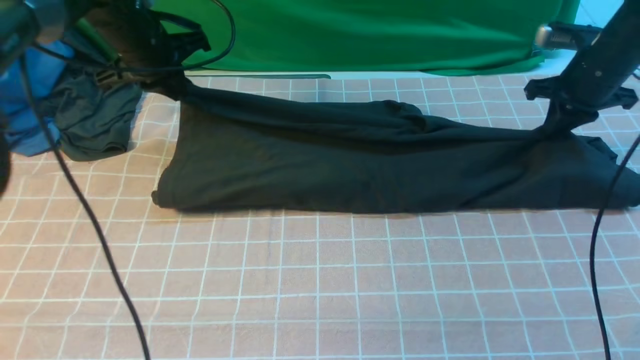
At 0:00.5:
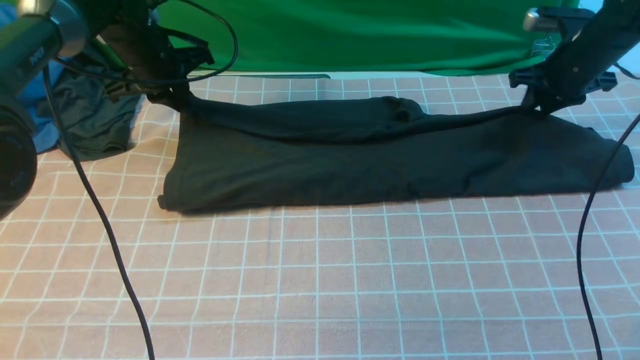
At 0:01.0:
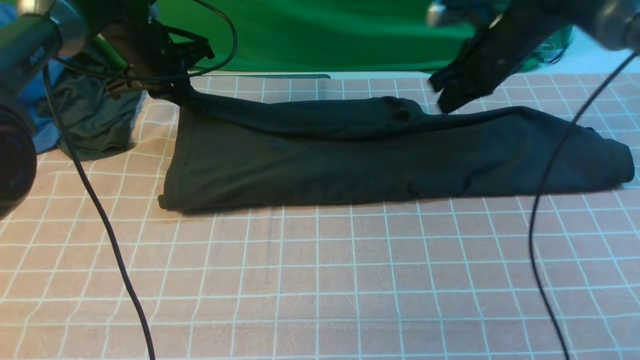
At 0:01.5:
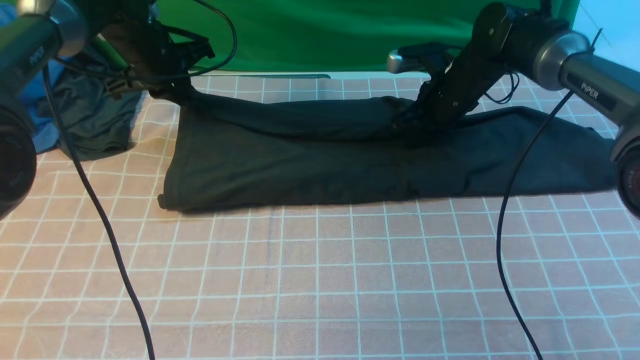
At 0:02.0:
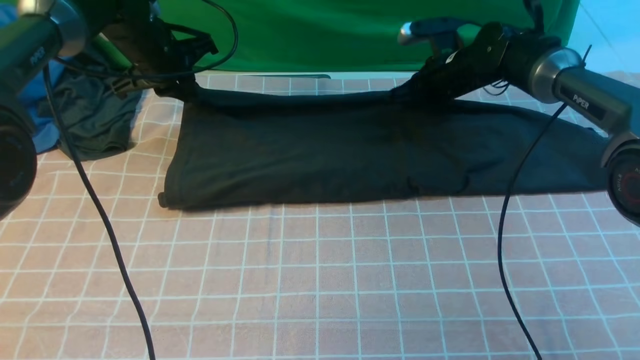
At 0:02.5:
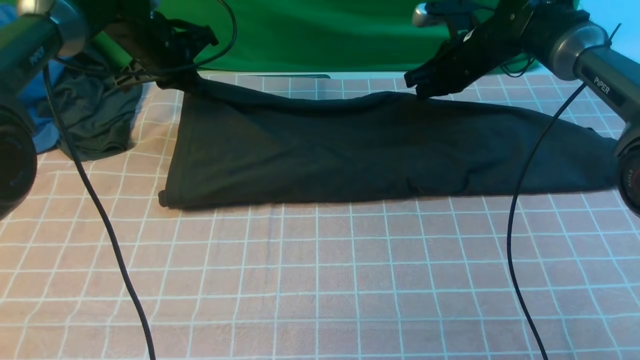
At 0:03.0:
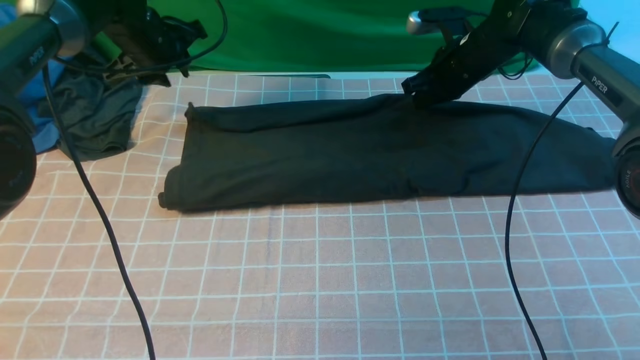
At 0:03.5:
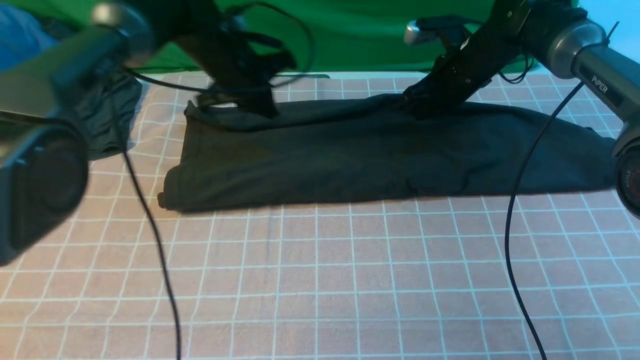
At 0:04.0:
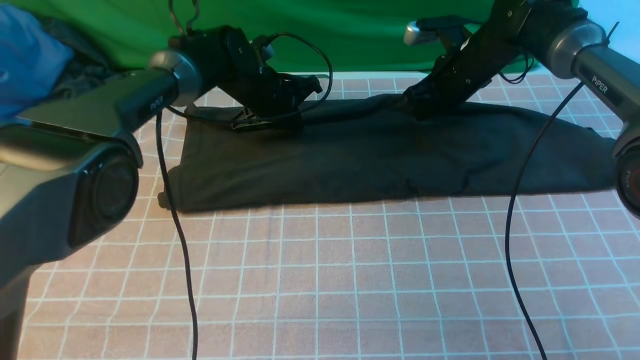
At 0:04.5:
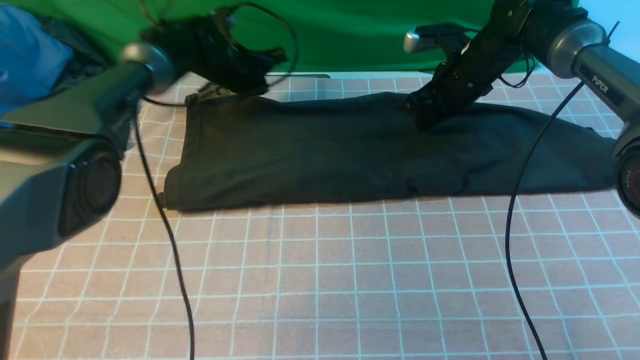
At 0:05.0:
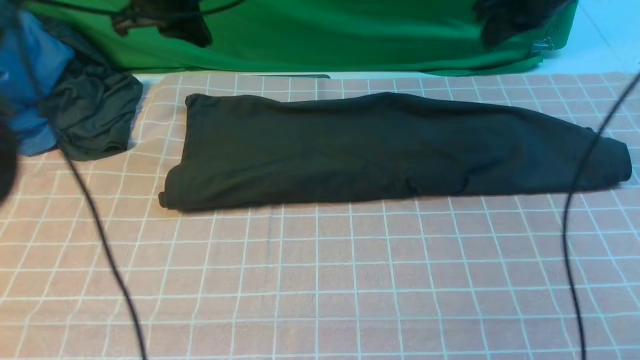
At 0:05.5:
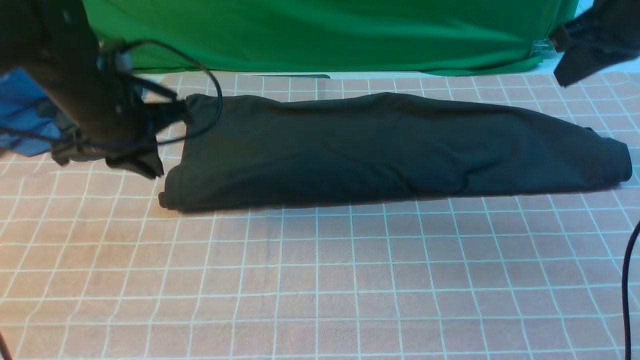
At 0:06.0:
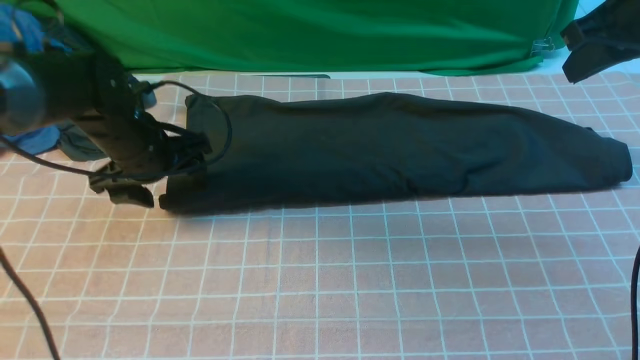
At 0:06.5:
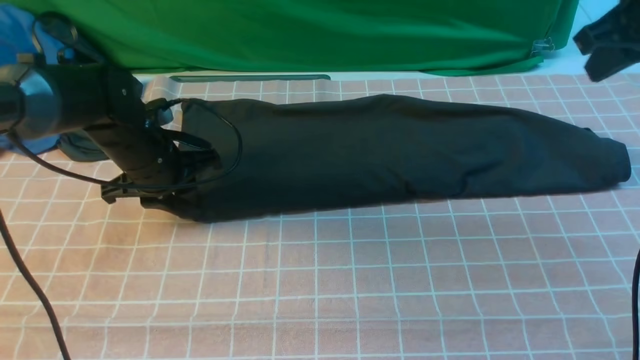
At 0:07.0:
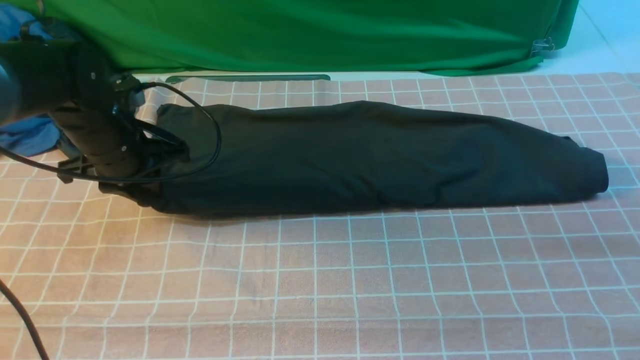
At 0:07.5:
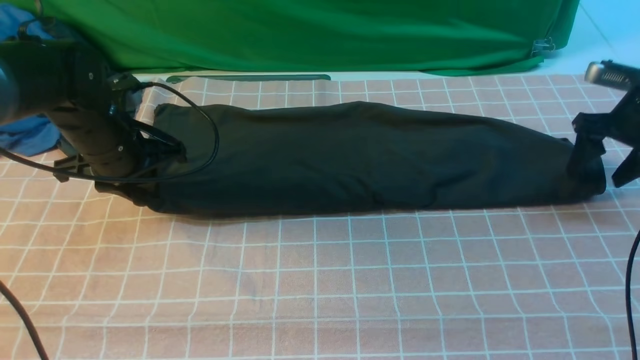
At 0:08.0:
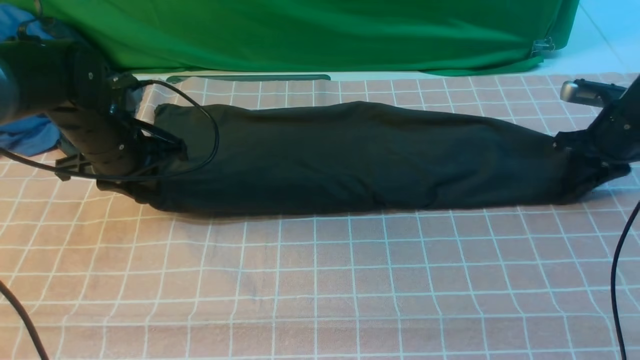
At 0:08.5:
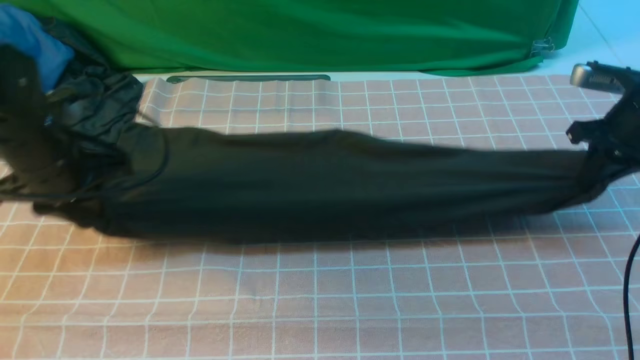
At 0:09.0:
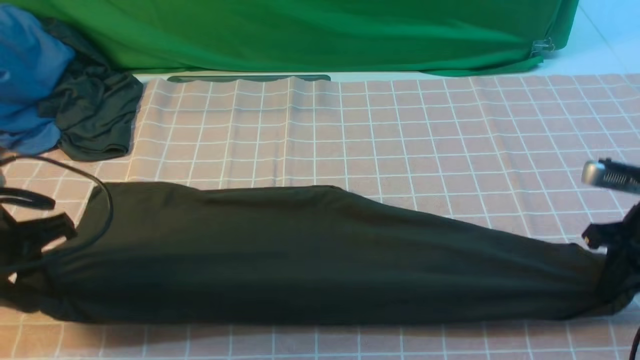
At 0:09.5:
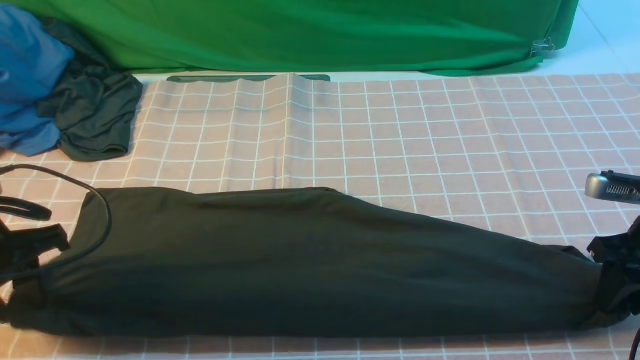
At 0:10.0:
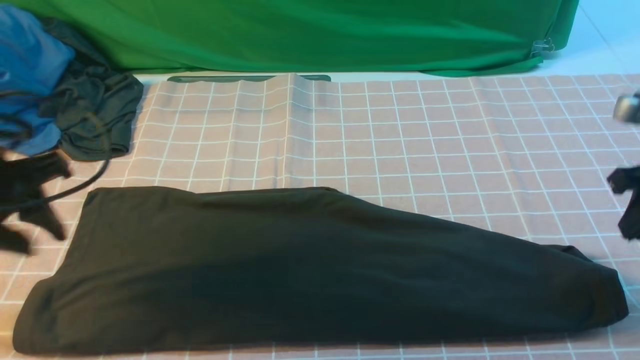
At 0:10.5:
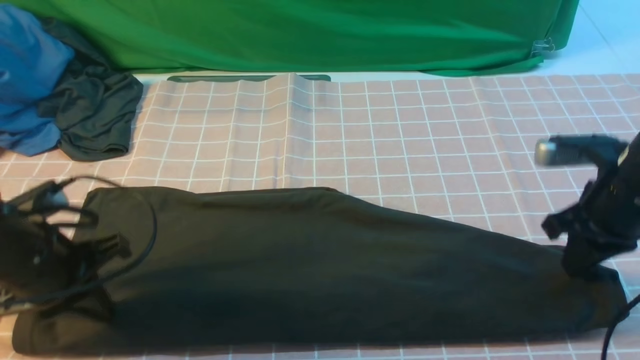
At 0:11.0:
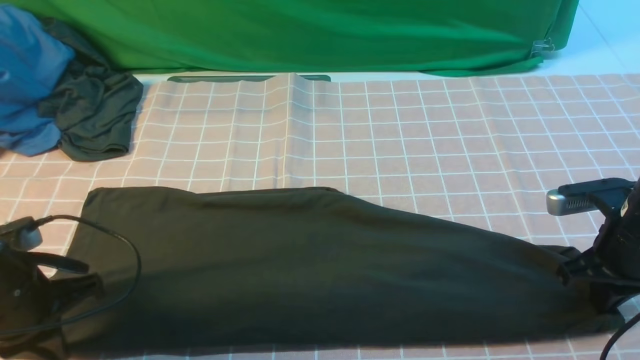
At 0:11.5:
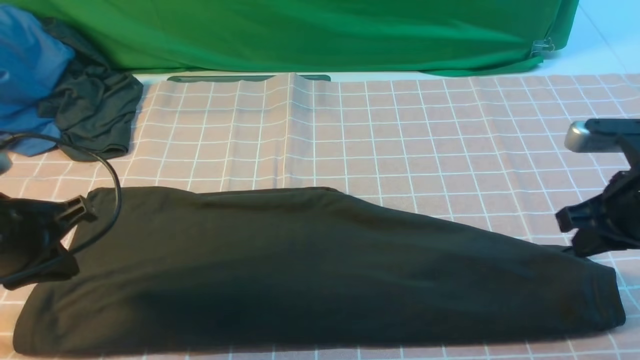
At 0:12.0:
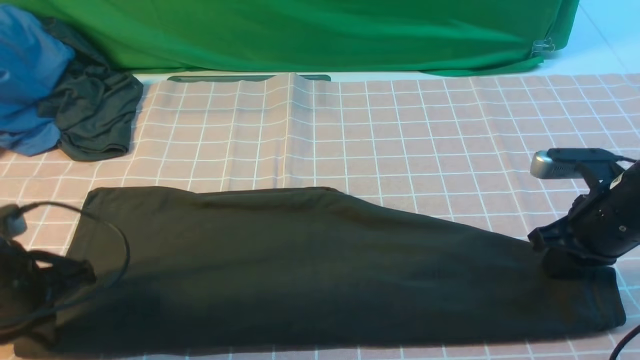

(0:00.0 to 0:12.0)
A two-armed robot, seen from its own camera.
Step, 0:00.0 - 0:03.0: use both arms to drag the lower edge of the fabric forward and fold it over the upper edge.
0:00.0 - 0:02.0: The right gripper shifts about 15 cm to the left and forward, and opens, then closes again.
0:02.0 - 0:04.0: The left gripper goes some 15 cm to the right and downward, and opens, then closes again.
0:04.0 - 0:06.0: The left gripper shifts about 20 cm backward and to the left, and opens. The right gripper moves upward, backward and to the right, some 25 cm.
0:06.0 - 0:08.0: The left gripper closes up. The right gripper travels downward and to the right by about 20 cm, and opens its fingers.
0:08.0 - 0:10.0: The left gripper shifts approximately 15 cm backward, to the left and upward. Meanwhile the right gripper heads backward and upward, covering roughly 15 cm.
0:10.0 - 0:12.0: The left gripper swings up and down, about 10 cm each way, with 2 reversals, and closes; the right gripper heads downward, covering about 5 cm.

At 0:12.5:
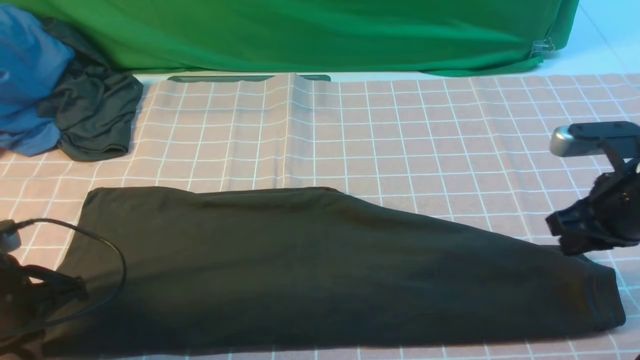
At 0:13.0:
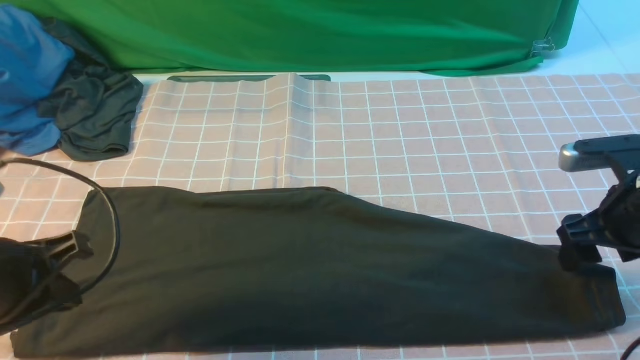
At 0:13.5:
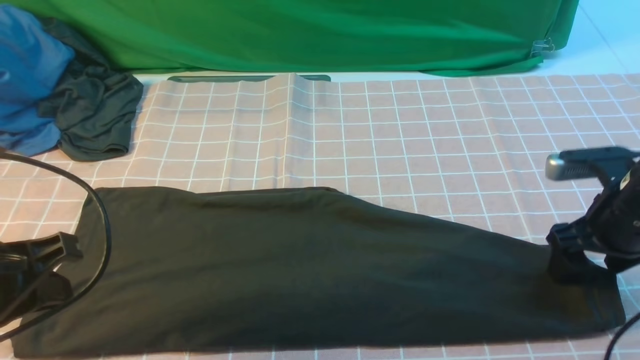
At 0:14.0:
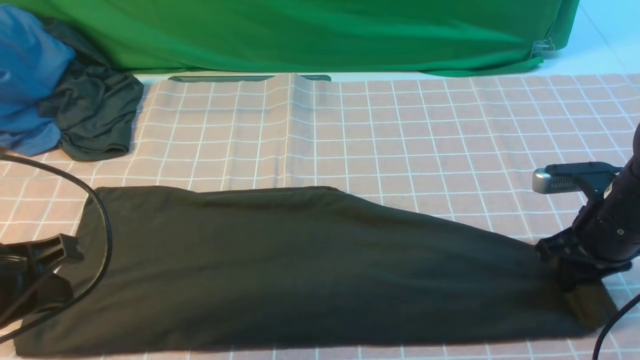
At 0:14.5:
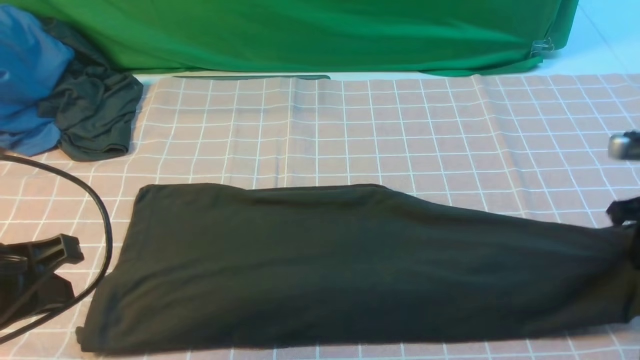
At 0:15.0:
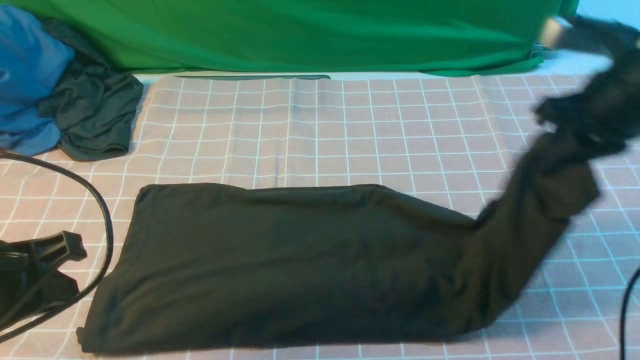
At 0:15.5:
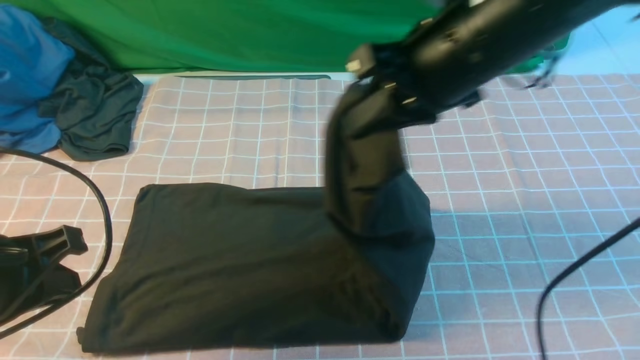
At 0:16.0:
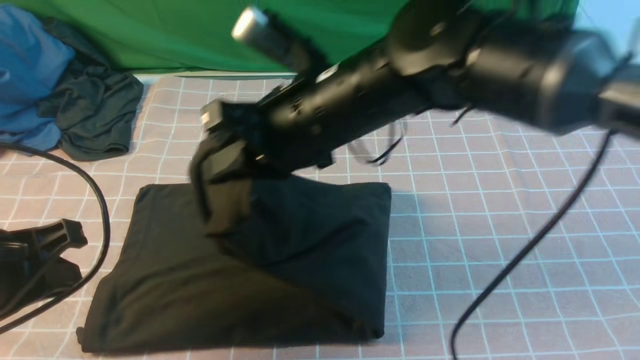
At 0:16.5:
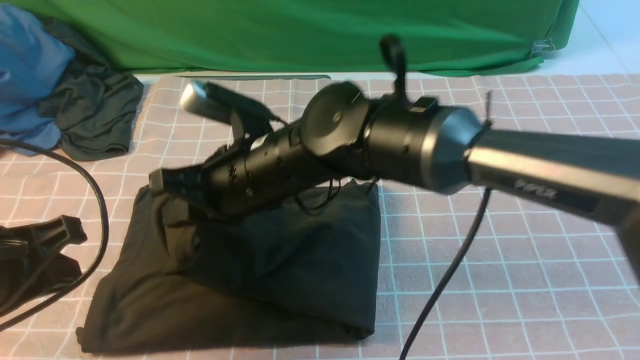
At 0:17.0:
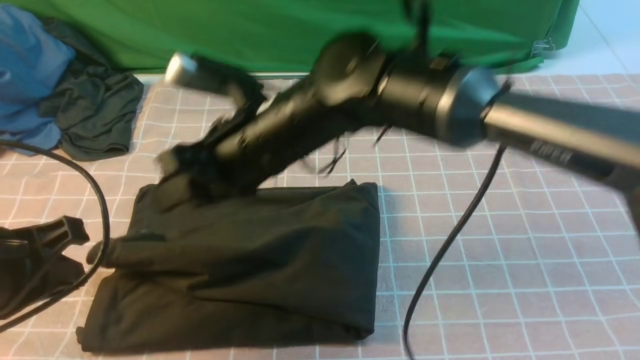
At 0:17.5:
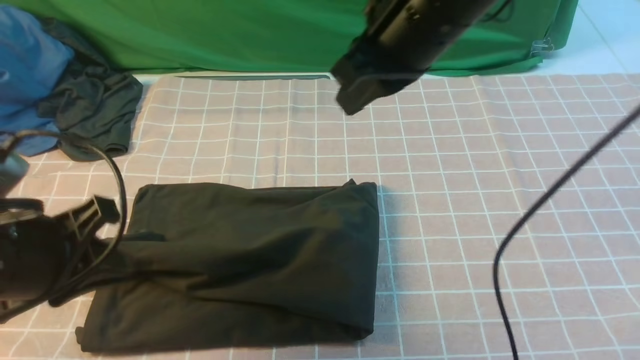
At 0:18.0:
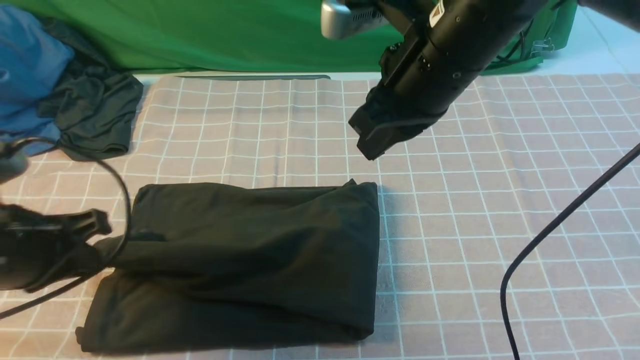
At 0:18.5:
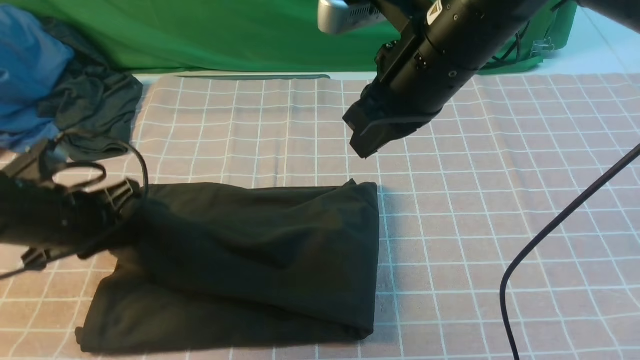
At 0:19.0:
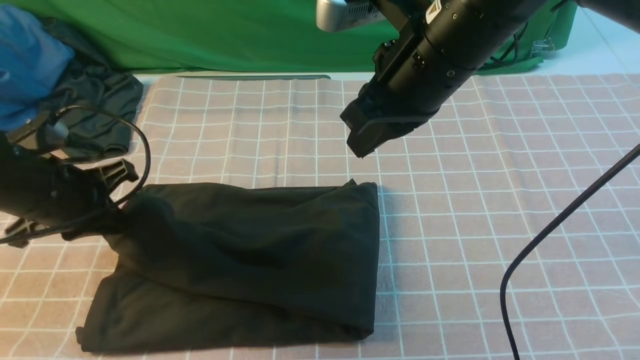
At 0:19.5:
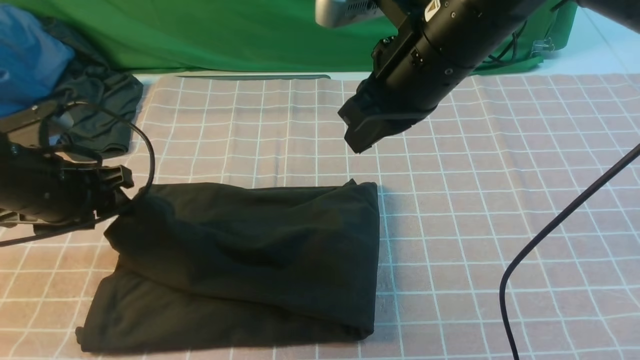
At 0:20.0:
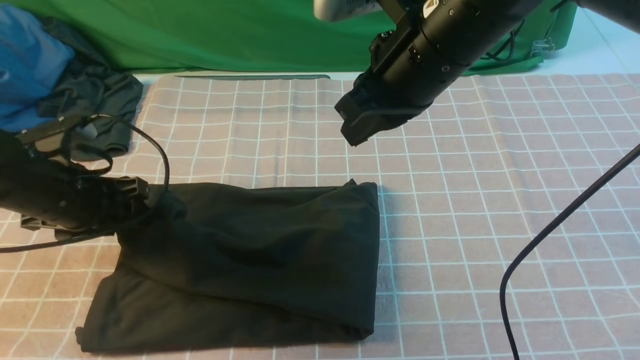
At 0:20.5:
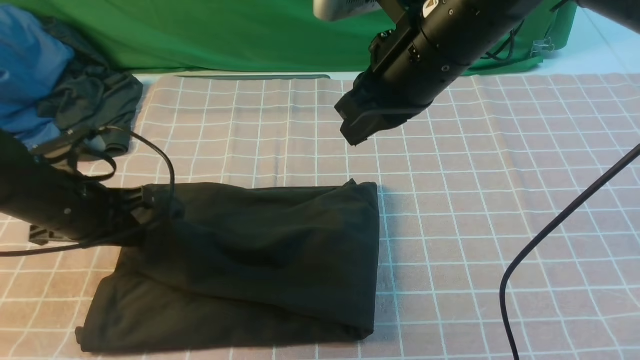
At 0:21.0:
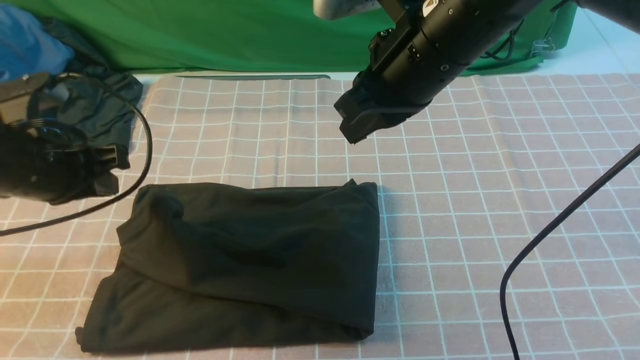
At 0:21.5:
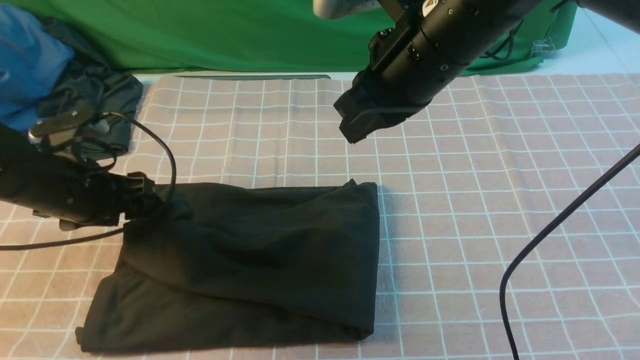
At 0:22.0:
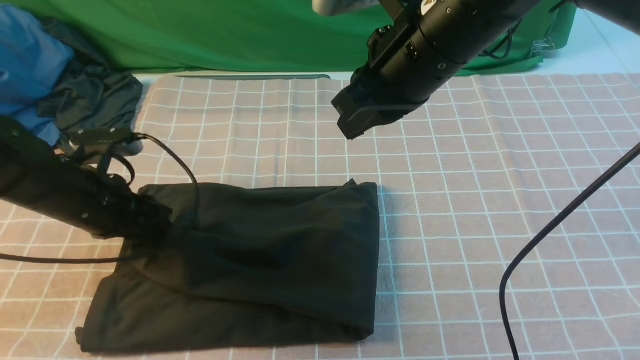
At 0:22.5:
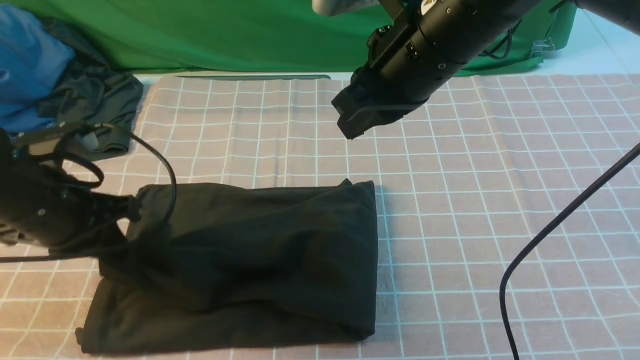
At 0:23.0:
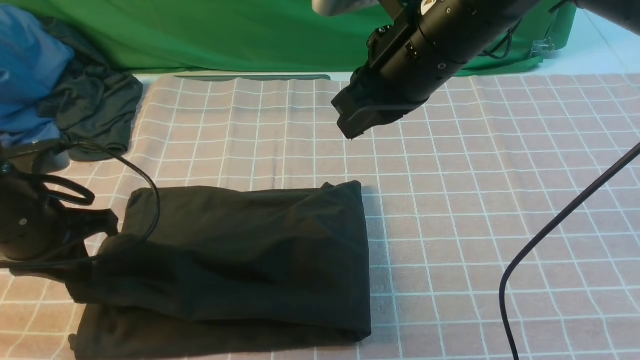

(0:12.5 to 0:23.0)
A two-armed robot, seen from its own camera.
Step, 0:14.5 - 0:17.0: use the right arm to drag the right edge of the fabric to the left and folds it over the left edge.
0:12.5 - 0:14.5: The right gripper moves to the right, about 5 cm, and opens, then closes again. The left gripper goes approximately 10 cm upward and backward.
0:14.5 - 0:16.5: The right gripper heads to the left, covering about 40 cm.
0:16.5 - 0:19.0: The right gripper is displaced to the right and upward by some 20 cm. Meanwhile the left gripper travels forward and downward by some 15 cm.
0:19.0 - 0:21.0: The left gripper opens and closes again.
0:21.0 - 0:23.0: The left gripper opens, then closes once more.
